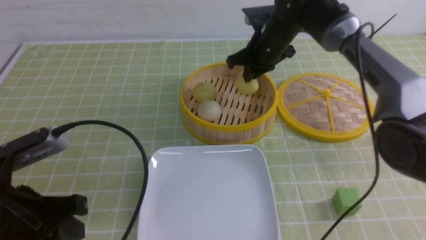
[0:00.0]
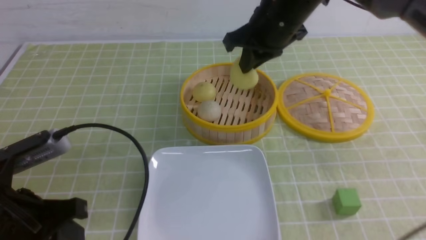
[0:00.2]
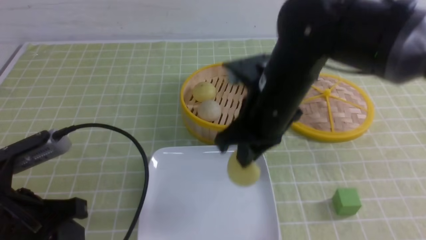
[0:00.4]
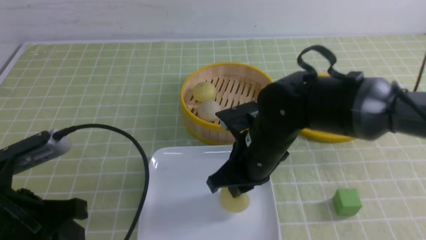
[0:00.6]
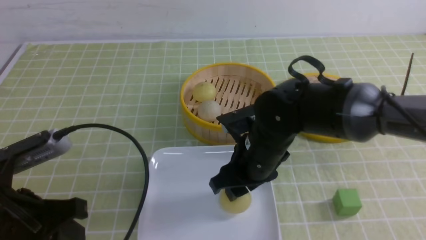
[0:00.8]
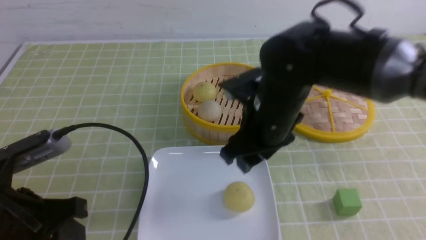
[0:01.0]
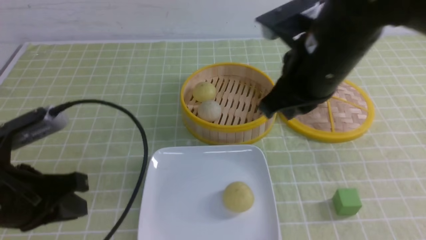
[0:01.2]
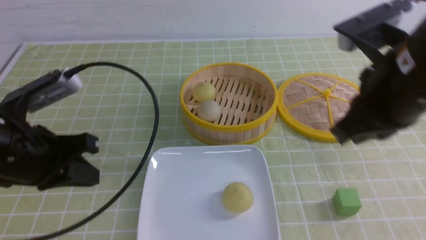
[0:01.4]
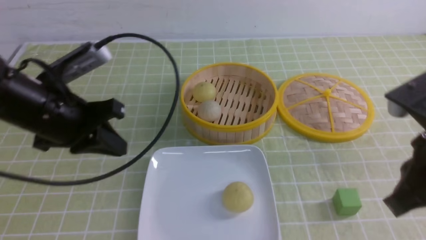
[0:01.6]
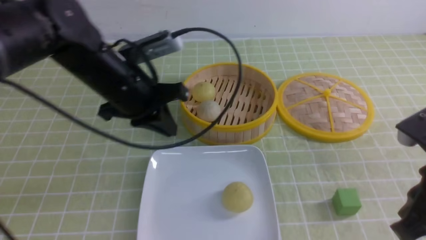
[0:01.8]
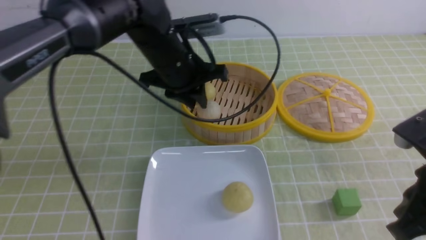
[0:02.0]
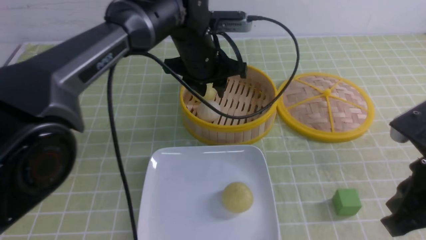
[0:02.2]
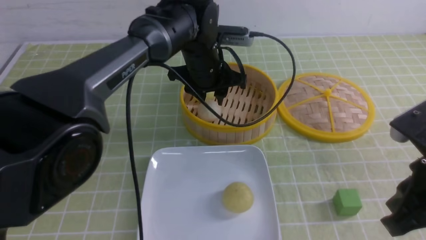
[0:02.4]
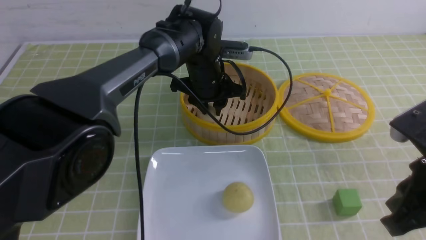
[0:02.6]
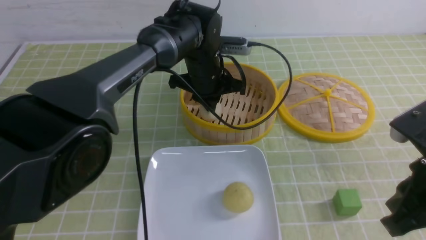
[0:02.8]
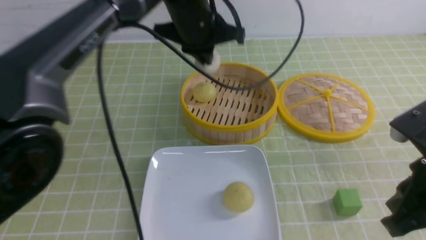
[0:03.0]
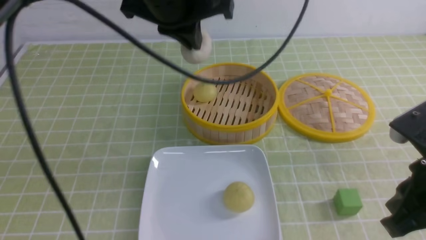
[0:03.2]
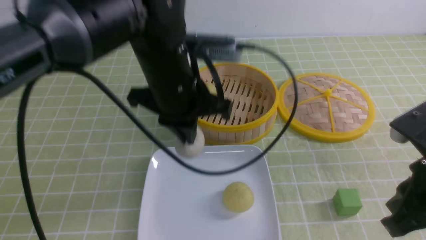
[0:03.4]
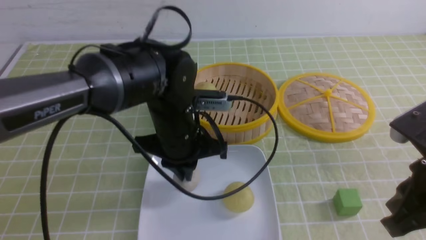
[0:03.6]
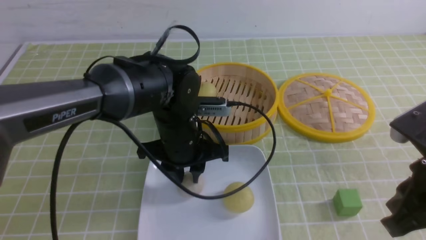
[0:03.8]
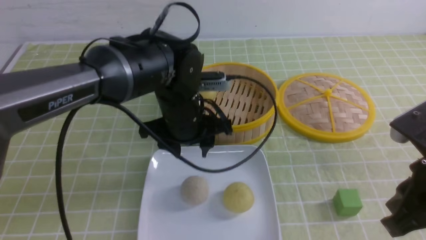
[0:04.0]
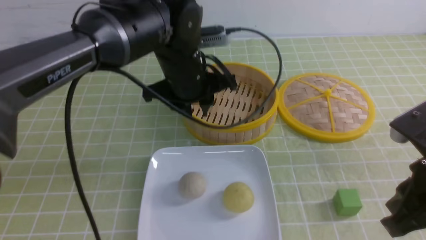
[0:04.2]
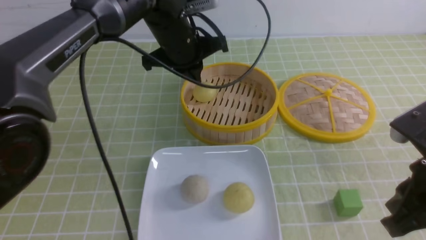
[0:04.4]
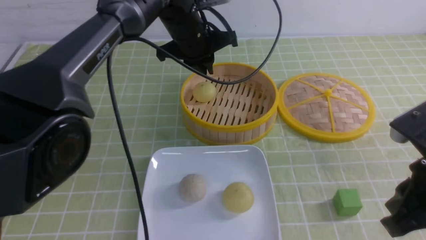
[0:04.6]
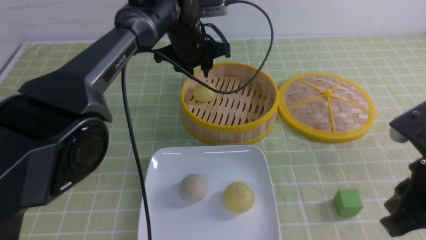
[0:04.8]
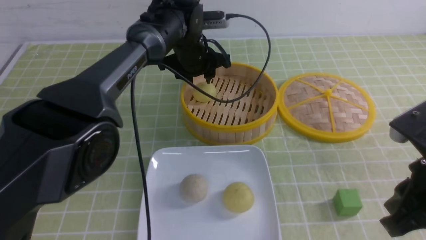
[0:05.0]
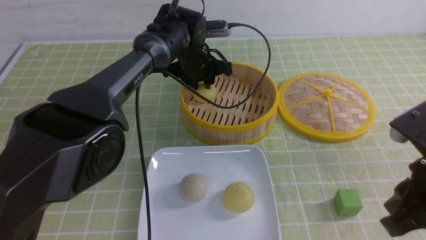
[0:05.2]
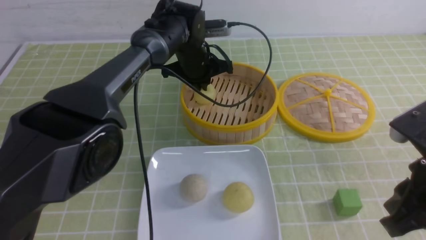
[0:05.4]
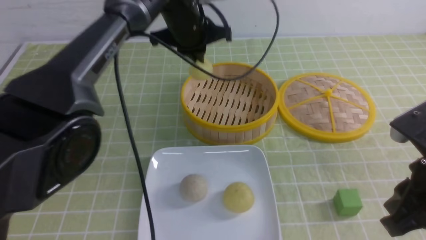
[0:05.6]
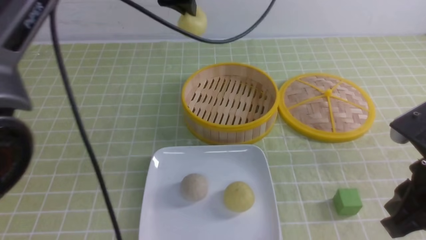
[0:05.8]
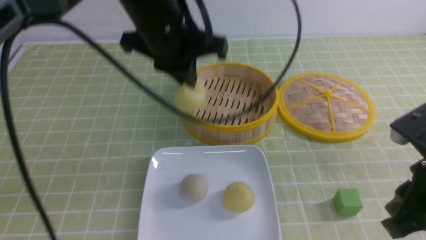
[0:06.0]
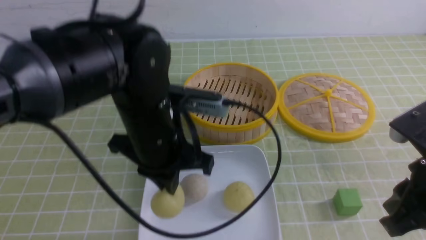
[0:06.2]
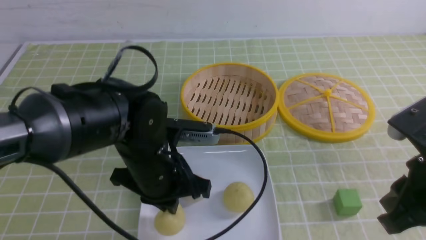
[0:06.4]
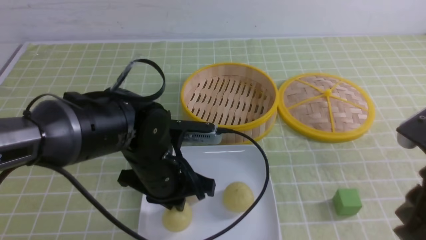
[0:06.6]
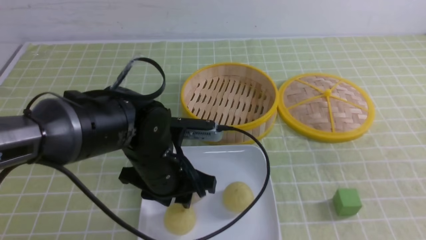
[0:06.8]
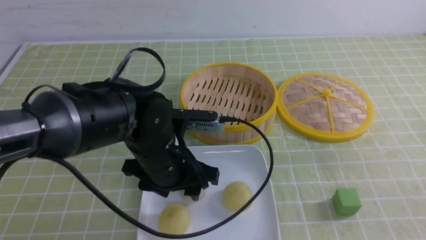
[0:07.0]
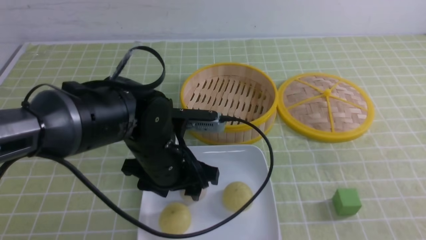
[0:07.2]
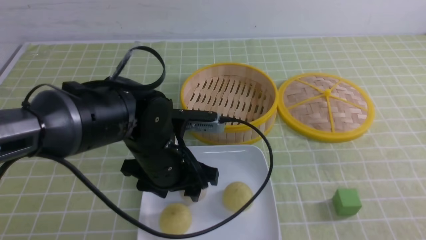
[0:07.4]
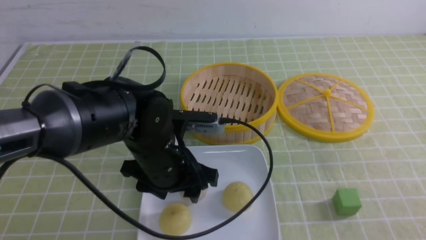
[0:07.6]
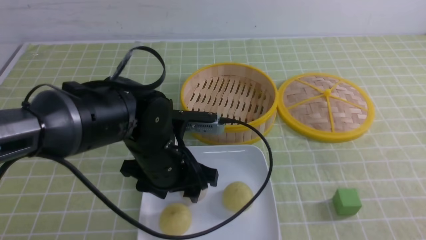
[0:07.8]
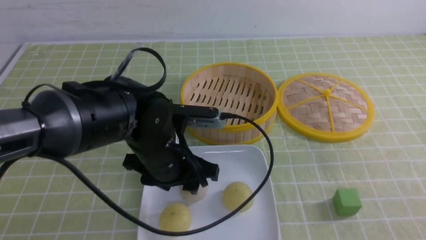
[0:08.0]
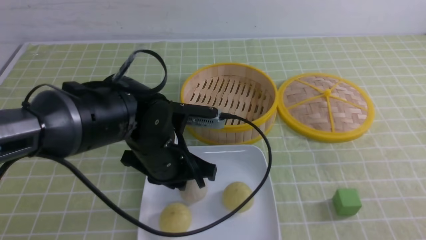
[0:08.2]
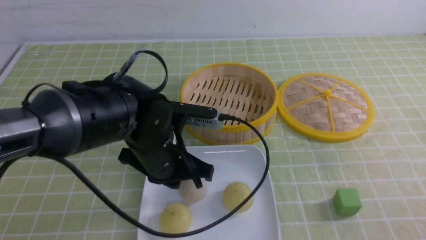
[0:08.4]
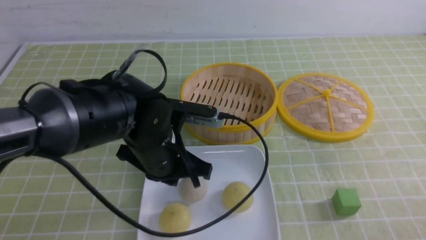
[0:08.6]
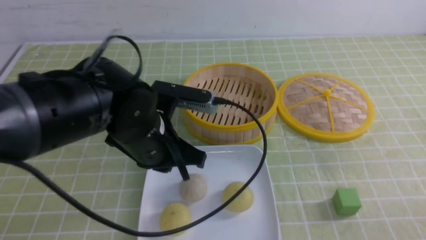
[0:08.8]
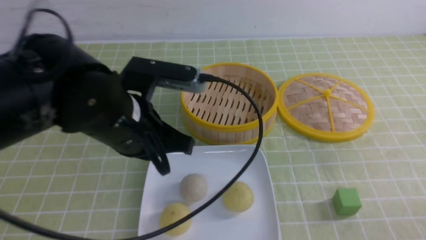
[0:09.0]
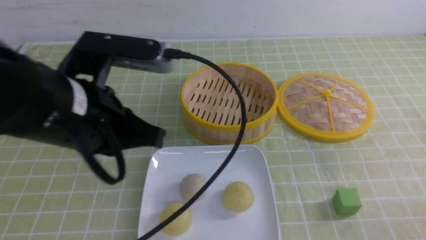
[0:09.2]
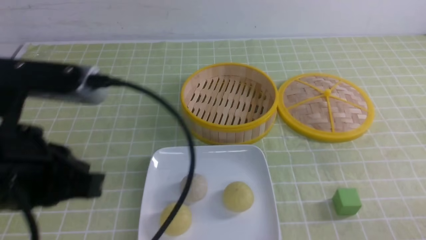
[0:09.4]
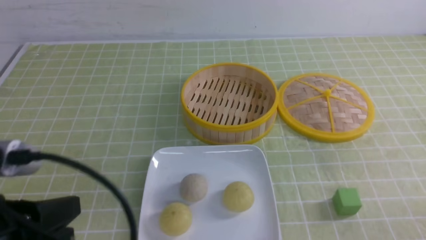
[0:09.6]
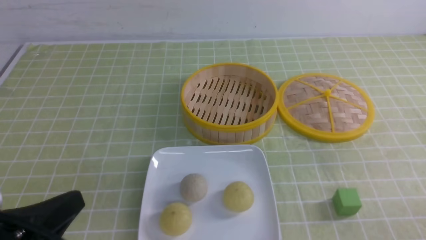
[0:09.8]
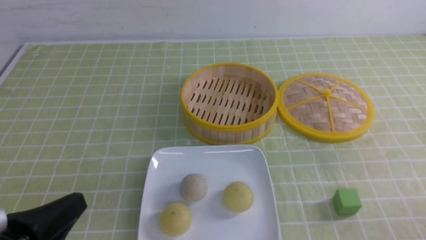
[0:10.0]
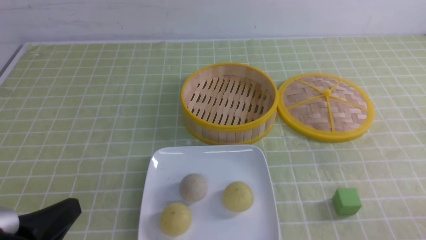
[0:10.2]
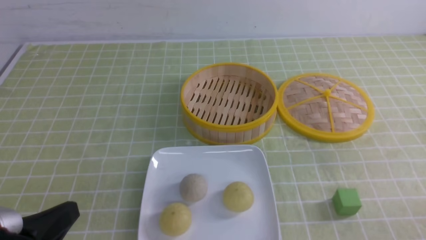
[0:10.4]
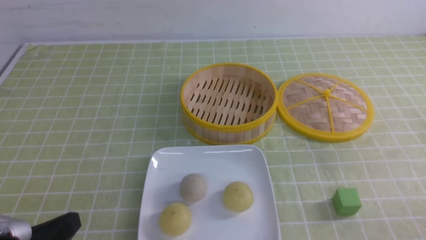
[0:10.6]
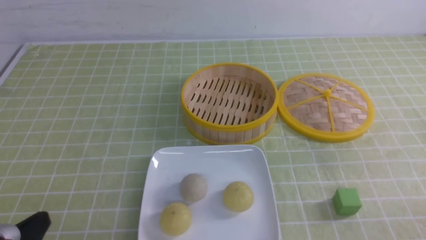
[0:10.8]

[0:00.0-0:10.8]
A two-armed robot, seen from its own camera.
Step, 0:00.0 to 0:00.8: use the right arm to put the steamed stuffed bun into the plate.
Step, 0:01.0 to 0:02.6: use the left arm to grab the steamed stuffed bun that is closest to it.
Step, 0:02.8 to 0:03.8: use the left arm to put the steamed stuffed bun into the plate.
Step, 0:04.0 to 0:05.4: use the left arm to grab the steamed stuffed bun that is closest to it.
Step, 0:05.6 to 0:06.6: use the left arm to put the steamed stuffed bun into the plate.
0:00.0 to 0:01.6: The right gripper is displaced backward and to the right by about 30 cm, and opens and closes again, while the left gripper travels forward by approximately 10 cm.
0:01.6 to 0:03.0: The left gripper heads to the right and forward, covering roughly 20 cm, and opens and closes again.
0:03.0 to 0:04.6: The left gripper is displaced forward and downward by some 10 cm.
0:04.6 to 0:06.2: The left gripper travels backward by about 20 cm.
0:06.2 to 0:07.8: The left gripper moves downward, about 5 cm, and opens. Meanwhile the right gripper moves backward and to the right, roughly 15 cm.
0:07.8 to 0:09.2: The right gripper travels downward by approximately 10 cm; the left gripper travels upward, backward and to the left by roughly 15 cm, and closes.
0:09.2 to 0:10.8: The left gripper shifts some 20 cm downward, backward and to the left.

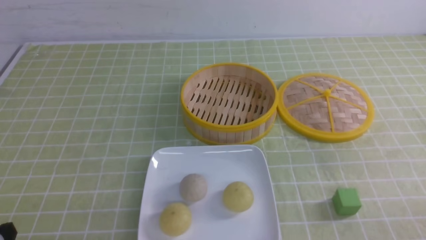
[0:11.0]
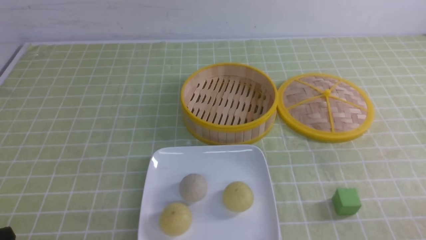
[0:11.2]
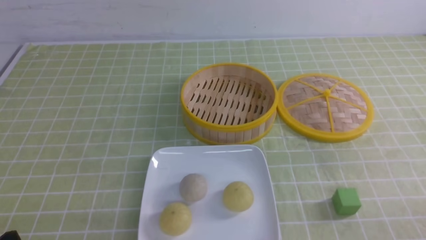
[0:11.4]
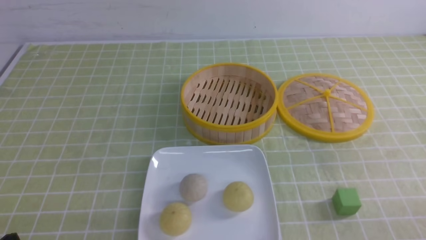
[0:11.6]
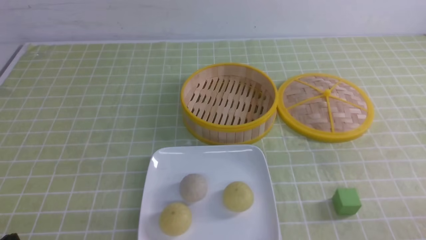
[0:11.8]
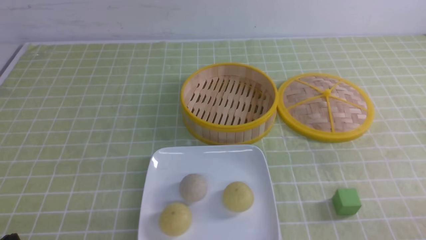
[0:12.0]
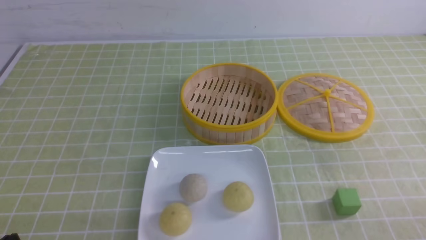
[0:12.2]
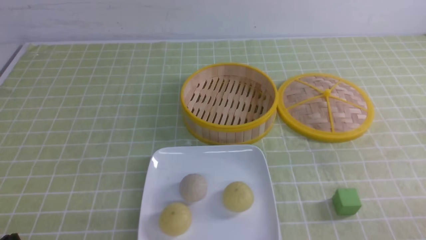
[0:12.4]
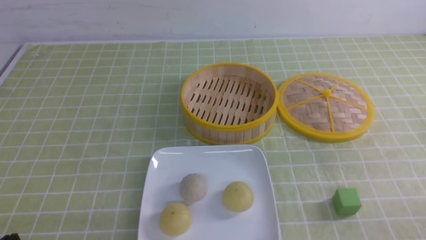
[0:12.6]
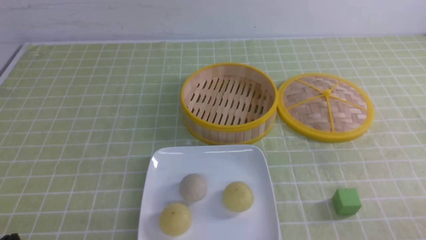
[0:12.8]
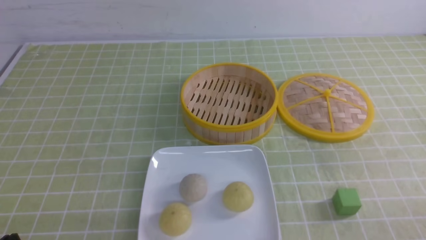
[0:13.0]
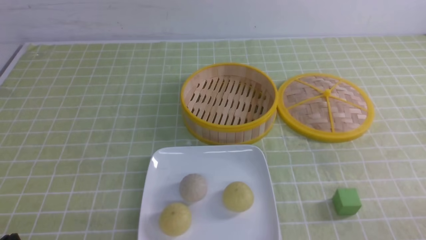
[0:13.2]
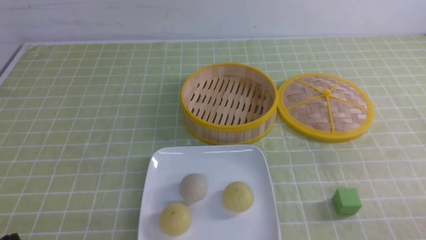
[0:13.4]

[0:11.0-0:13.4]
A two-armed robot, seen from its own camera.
0:12.2 to 0:13.4: Both grippers stay put.
